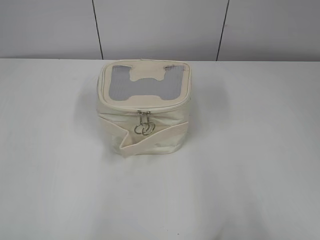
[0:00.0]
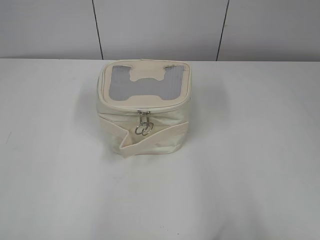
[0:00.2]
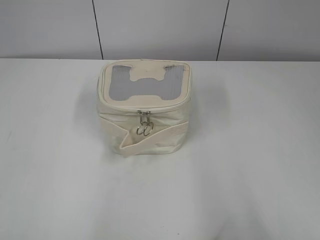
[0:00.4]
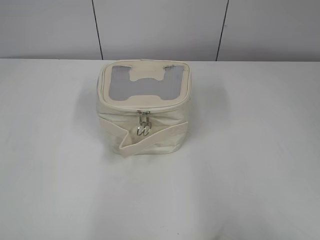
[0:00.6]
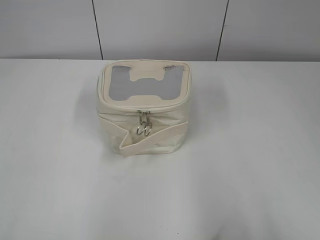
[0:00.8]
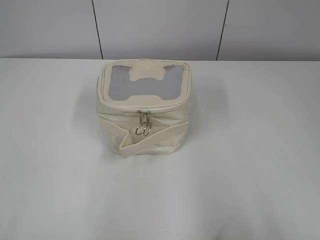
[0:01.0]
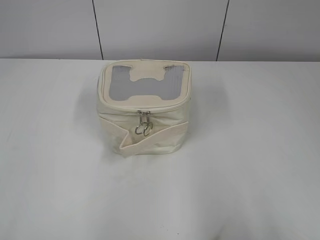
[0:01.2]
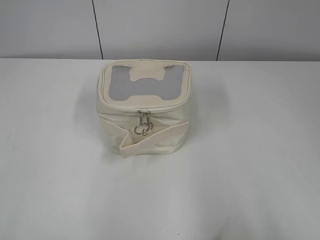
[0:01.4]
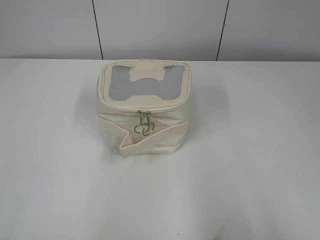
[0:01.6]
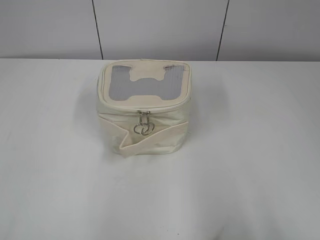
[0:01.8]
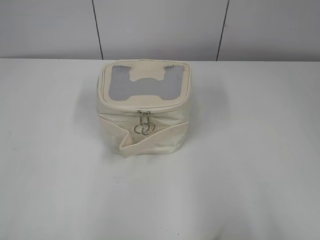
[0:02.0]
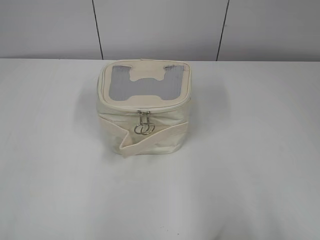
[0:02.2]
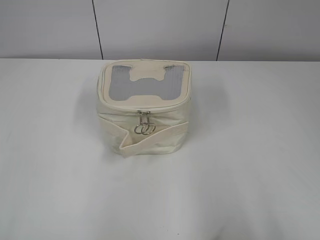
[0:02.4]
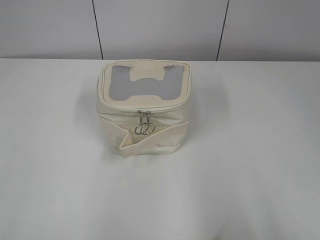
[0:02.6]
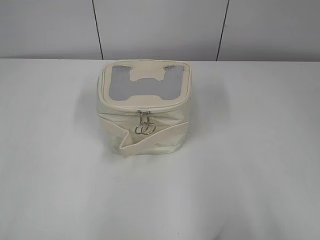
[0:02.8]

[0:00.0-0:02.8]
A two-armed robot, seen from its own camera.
0:01.4 to 0:02.8: Neither gripper changes place.

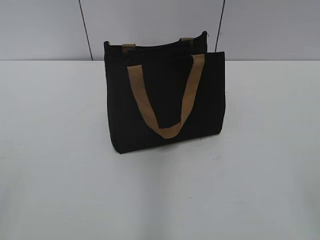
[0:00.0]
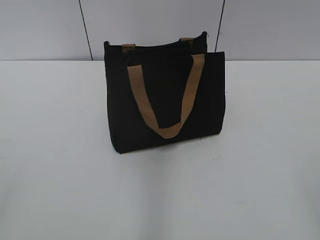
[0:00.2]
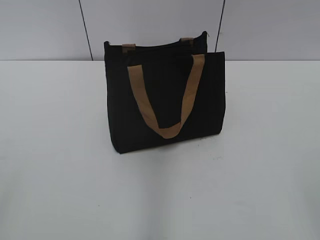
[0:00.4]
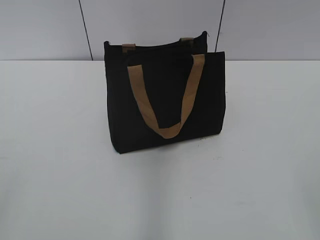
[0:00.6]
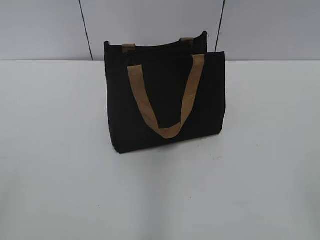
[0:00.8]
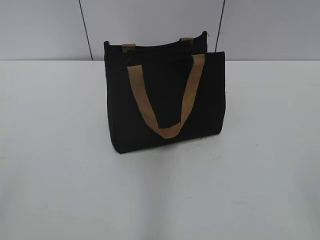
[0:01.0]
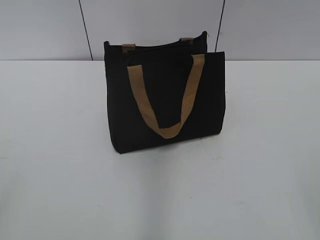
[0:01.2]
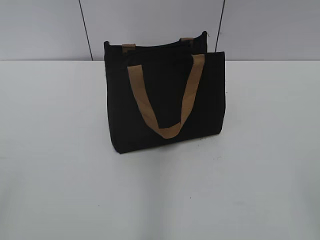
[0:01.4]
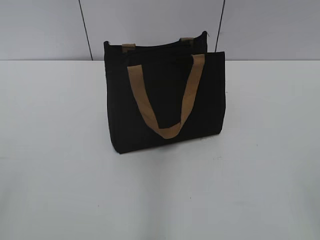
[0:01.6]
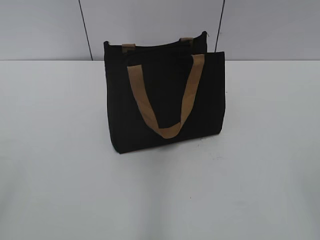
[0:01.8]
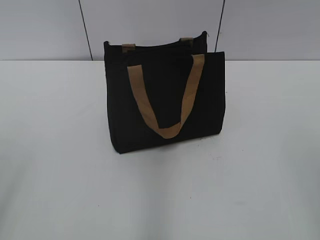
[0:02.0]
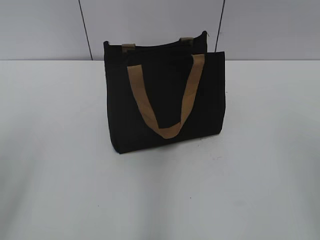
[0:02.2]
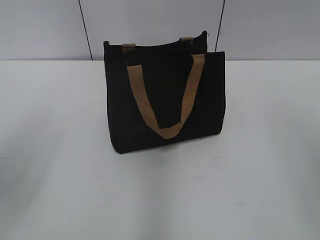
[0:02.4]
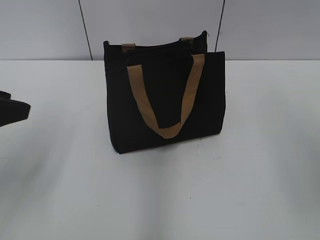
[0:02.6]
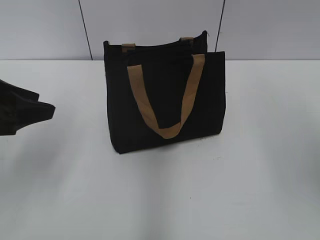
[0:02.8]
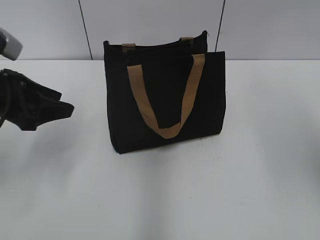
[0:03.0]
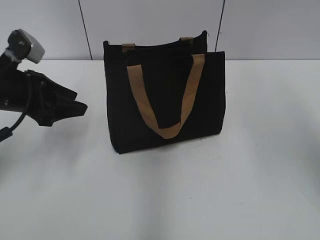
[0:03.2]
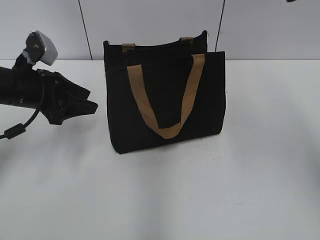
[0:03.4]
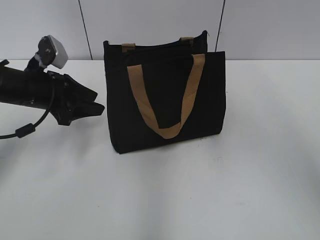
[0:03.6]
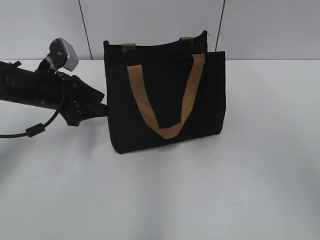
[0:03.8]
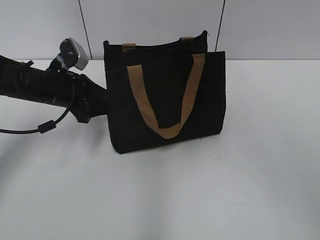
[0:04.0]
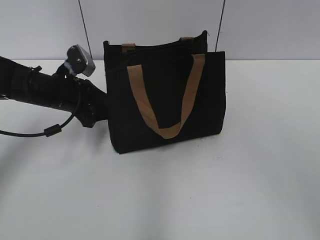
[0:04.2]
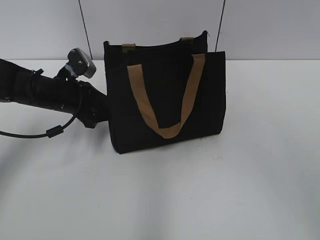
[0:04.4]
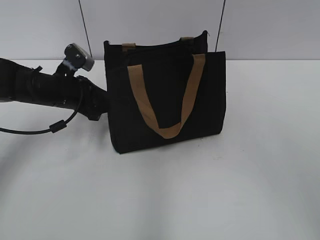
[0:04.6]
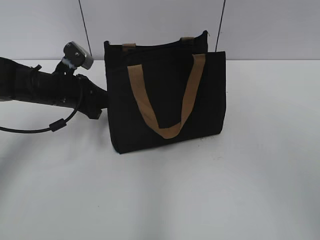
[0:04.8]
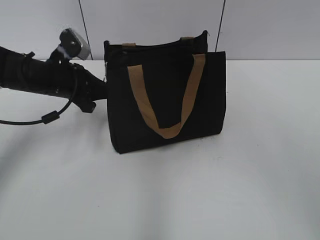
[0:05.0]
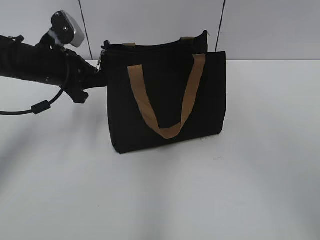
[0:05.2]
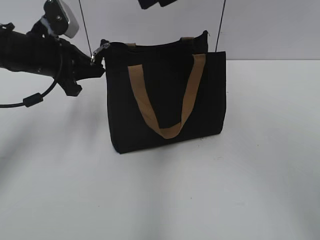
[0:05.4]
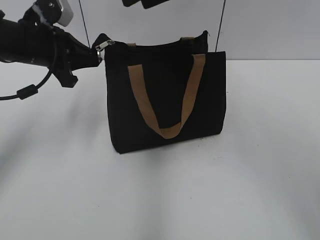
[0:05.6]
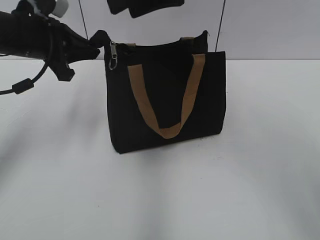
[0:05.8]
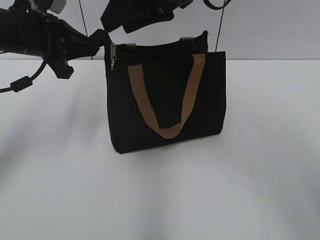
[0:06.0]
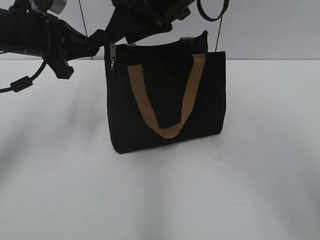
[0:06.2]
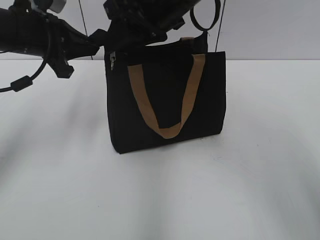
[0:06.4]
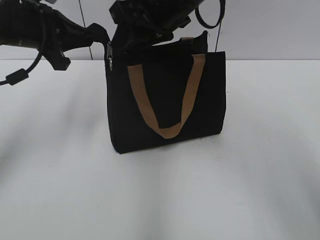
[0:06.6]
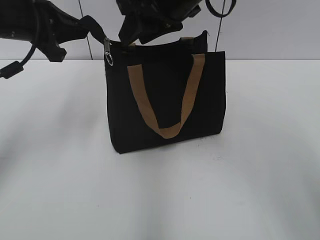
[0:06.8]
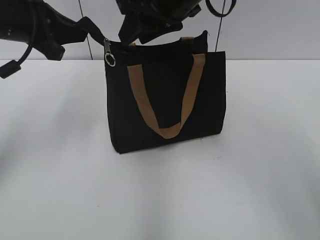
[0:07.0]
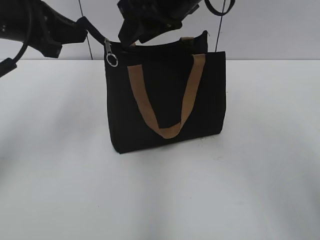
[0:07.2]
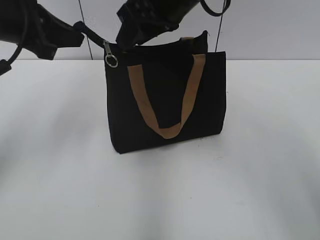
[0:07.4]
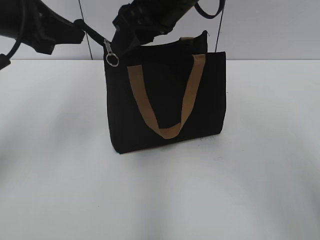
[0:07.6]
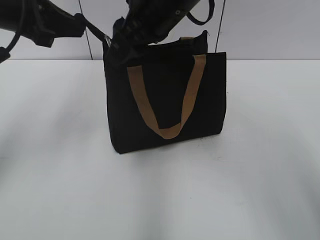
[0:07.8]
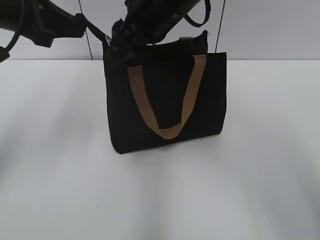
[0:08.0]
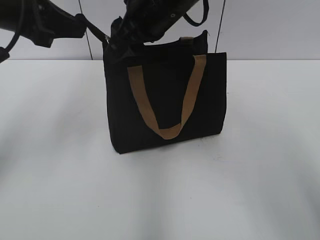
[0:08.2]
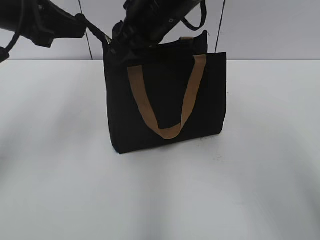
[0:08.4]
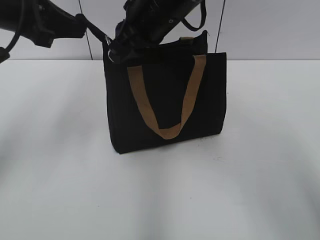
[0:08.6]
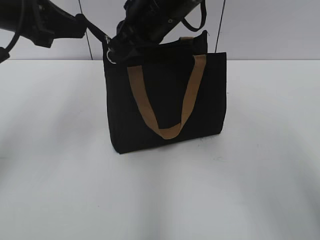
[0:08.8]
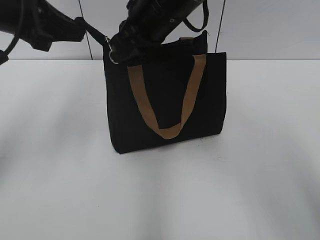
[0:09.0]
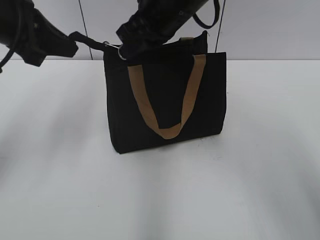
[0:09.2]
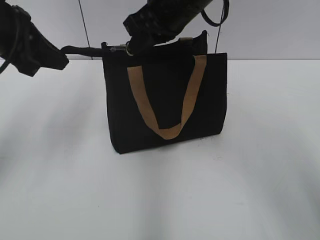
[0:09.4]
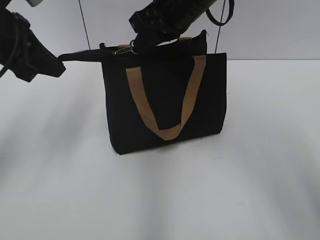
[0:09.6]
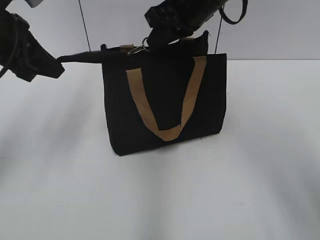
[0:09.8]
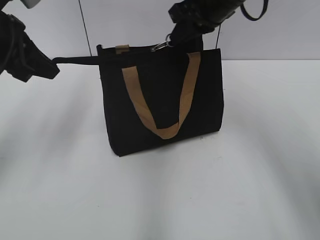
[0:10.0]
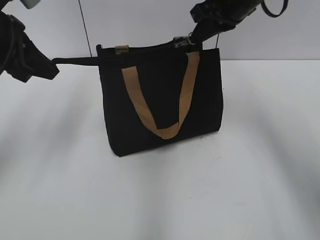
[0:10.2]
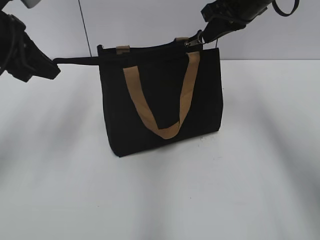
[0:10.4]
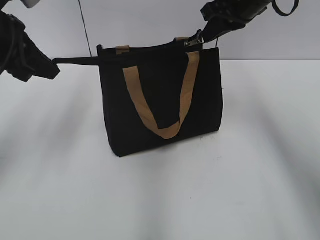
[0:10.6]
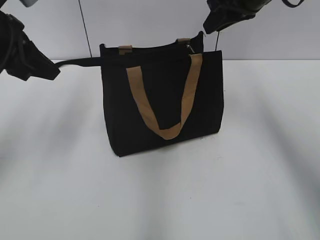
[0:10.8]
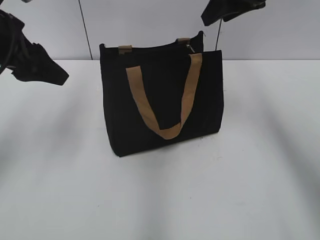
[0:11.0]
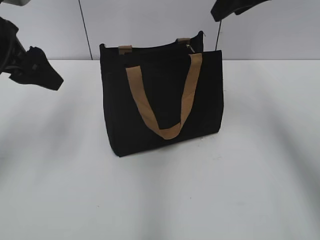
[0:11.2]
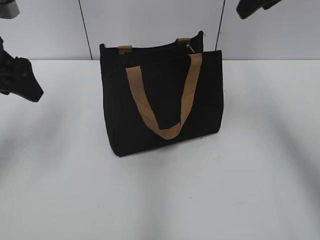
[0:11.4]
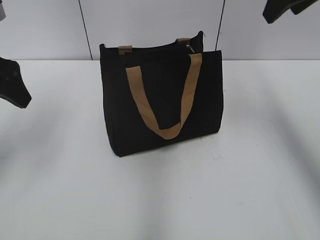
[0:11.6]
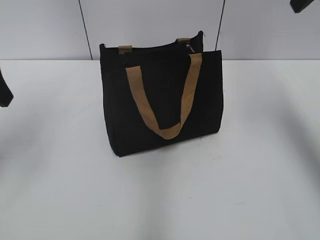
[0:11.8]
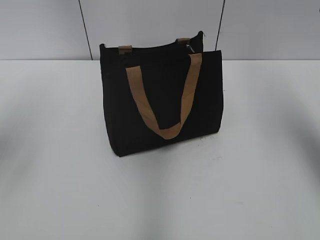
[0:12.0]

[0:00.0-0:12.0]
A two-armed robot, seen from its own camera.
Step, 0:00.0 to 0:10.6: Zip up the bag with your right hand.
0:01.6 to 0:03.0: The left gripper is displaced forward by roughly 25 cm.
0:03.0 to 0:04.4: The left gripper moves forward, downward and to the right, approximately 15 cm.
0:04.4 to 0:06.0: The left gripper goes about 15 cm upward, and closes. Meanwhile the right gripper heads downward and to the left, covering roughly 10 cm.
0:06.0 to 0:07.6: The left gripper ends up approximately 5 cm from where it was.
0:07.6 to 0:09.0: The right gripper closes.
0:09.0 to 0:10.4: The right gripper heads to the right, covering about 15 cm.
0:10.4 to 0:12.0: The left gripper travels to the left and backward by about 10 cm, and opens; the right gripper travels backward, upward and to the right by some 20 cm, and opens.

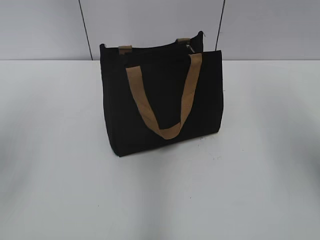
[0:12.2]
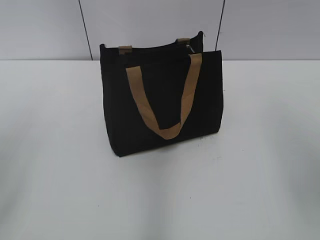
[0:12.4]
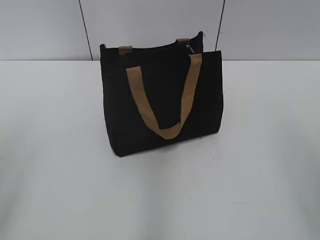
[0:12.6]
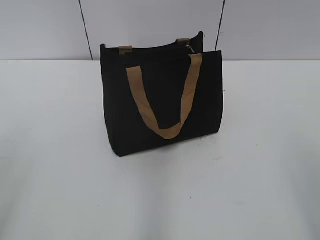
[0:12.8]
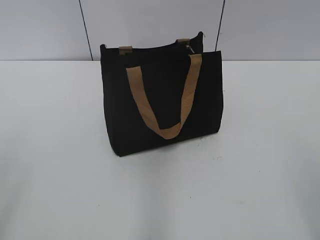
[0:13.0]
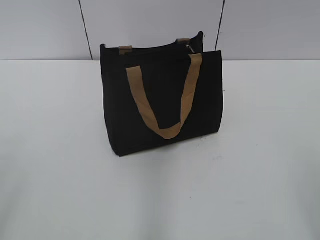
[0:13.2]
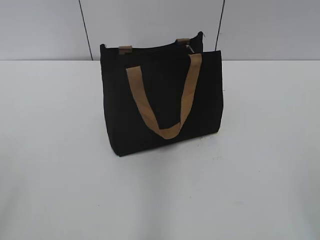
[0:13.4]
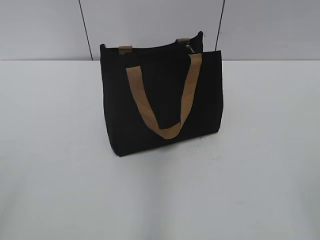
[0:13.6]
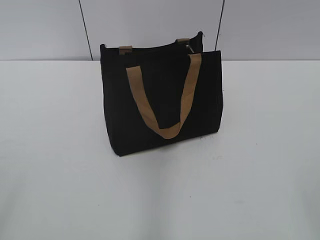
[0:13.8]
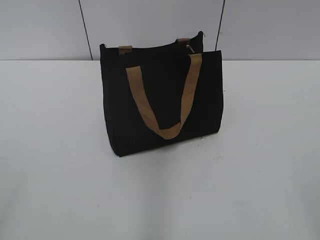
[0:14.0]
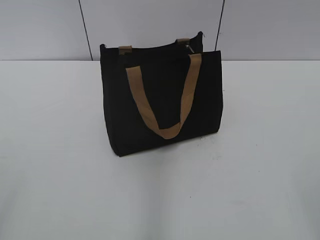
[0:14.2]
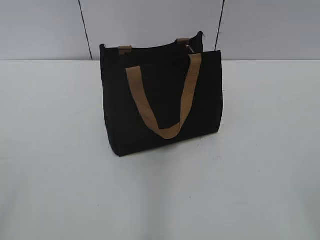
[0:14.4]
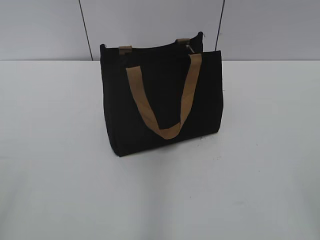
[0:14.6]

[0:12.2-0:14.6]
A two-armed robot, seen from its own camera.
0:12.2 to 0:13.4: The right gripper goes about 25 cm backward and downward.

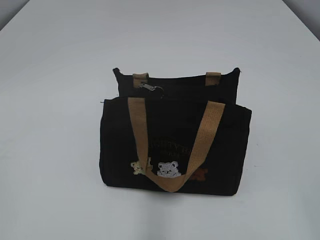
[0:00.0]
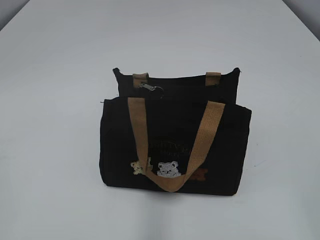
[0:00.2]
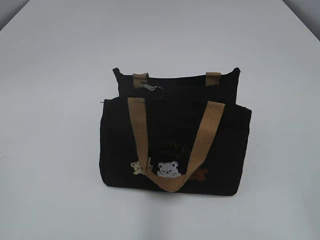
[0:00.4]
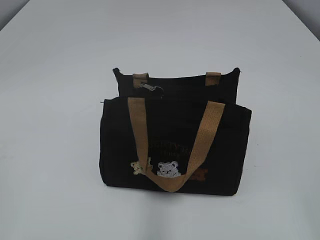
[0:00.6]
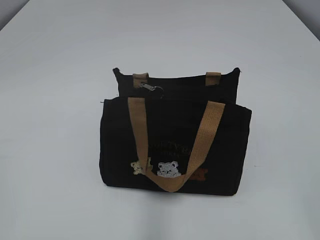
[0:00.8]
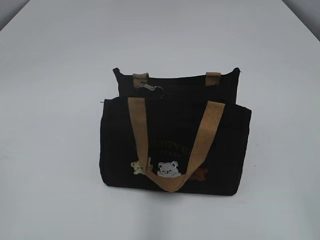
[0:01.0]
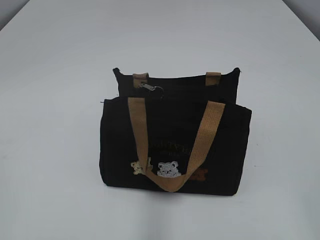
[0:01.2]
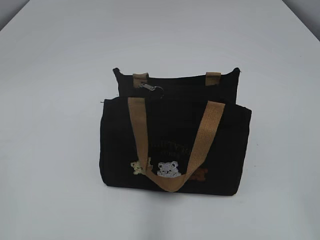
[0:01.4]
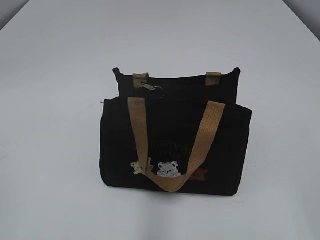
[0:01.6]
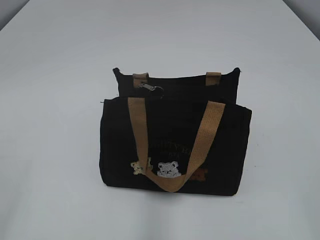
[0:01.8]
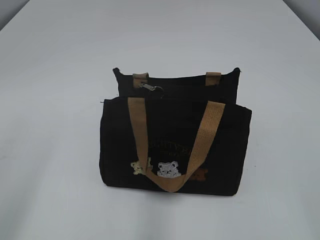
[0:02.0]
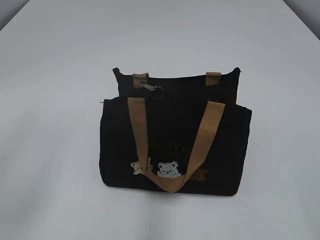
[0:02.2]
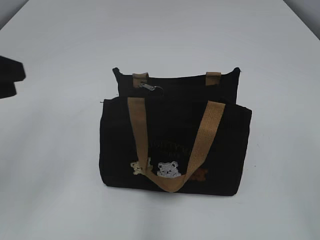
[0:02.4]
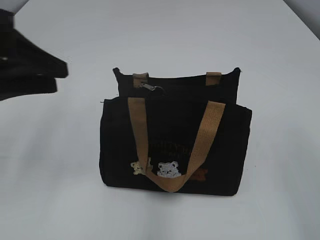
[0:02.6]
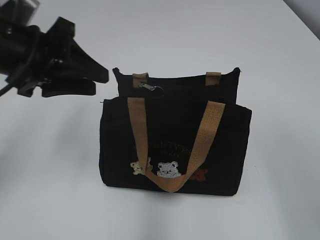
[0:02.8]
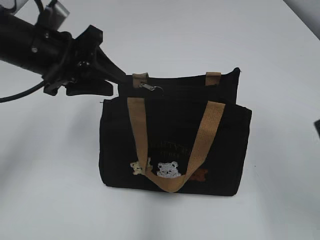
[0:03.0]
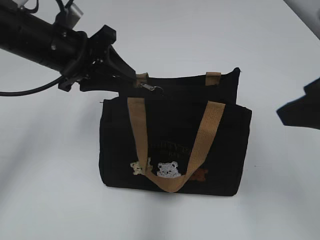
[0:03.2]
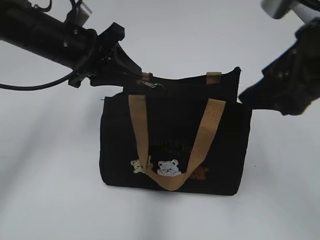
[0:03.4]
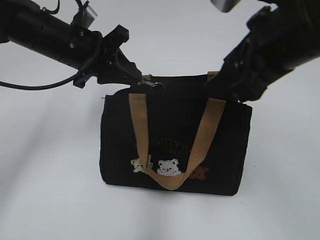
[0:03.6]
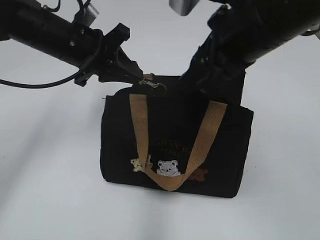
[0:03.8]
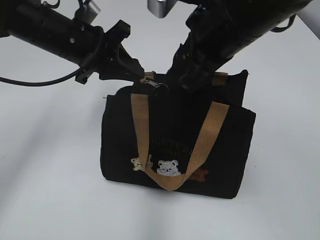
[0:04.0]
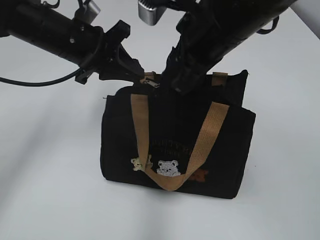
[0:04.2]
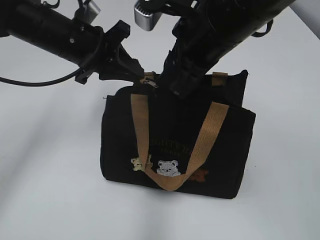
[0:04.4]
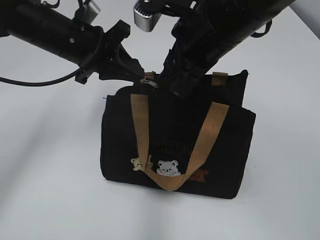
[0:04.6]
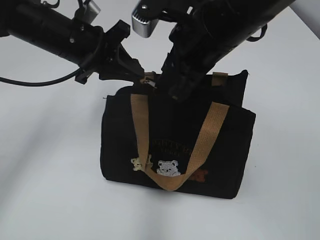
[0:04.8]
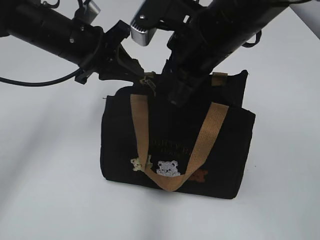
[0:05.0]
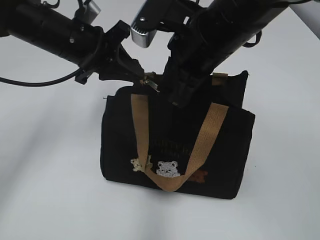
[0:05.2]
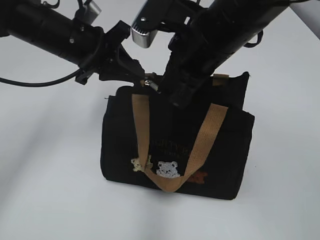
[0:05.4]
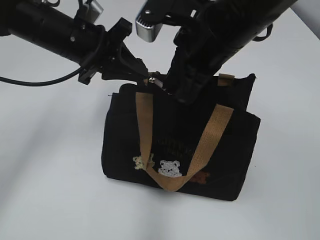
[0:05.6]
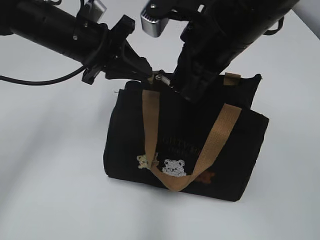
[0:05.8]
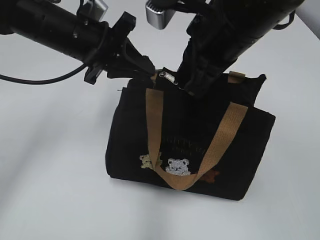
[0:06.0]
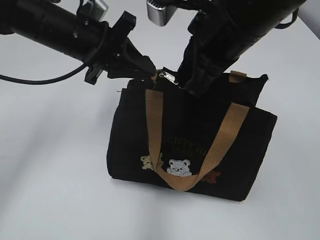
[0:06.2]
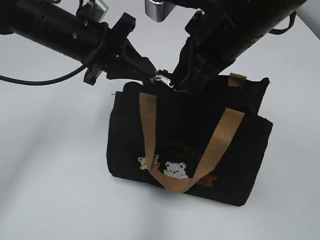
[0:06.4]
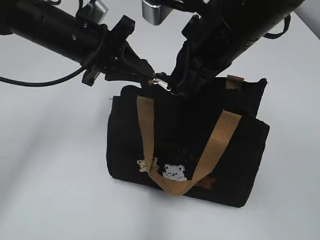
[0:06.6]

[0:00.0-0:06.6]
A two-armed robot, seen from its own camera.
0:01.6 to 0:03.2: The right gripper goes roughly 20 cm forward, while the left gripper shifts some 35 cm forward and to the right.
0:03.2 to 0:05.0: The right gripper shifts approximately 20 cm to the left and forward, and closes its fingers; the left gripper closes up.
0:05.0 to 0:06.6: The right gripper closes.
